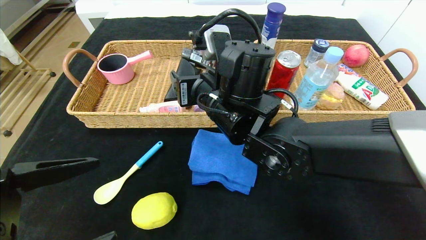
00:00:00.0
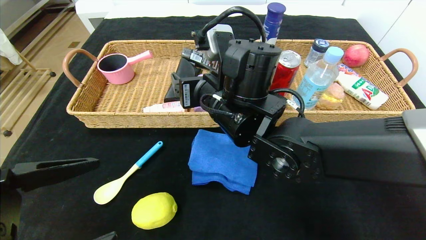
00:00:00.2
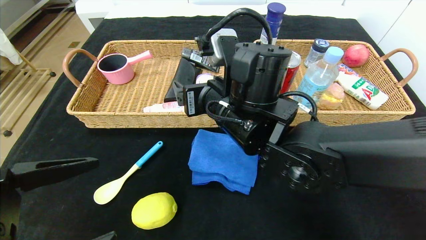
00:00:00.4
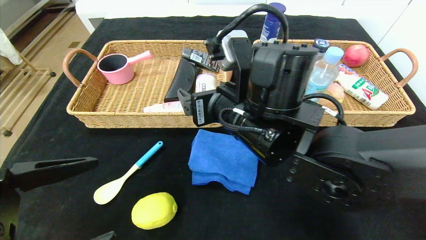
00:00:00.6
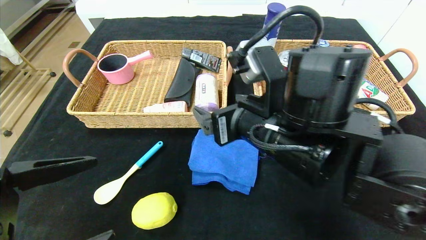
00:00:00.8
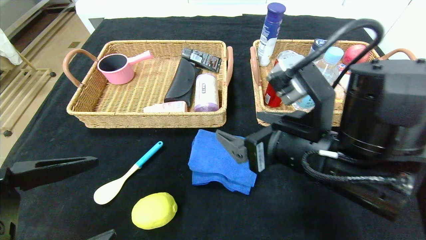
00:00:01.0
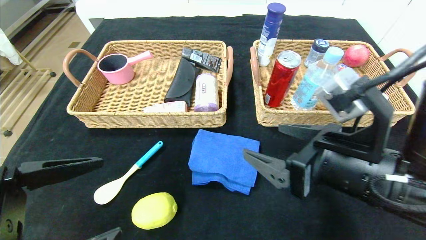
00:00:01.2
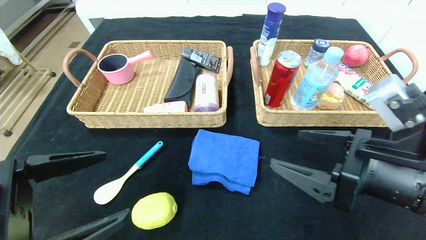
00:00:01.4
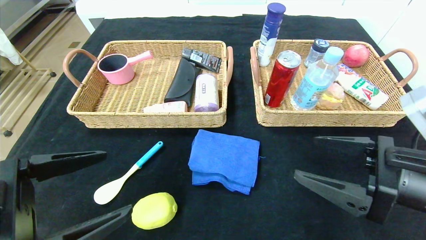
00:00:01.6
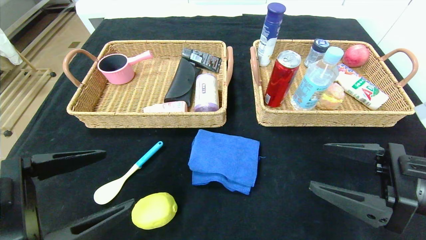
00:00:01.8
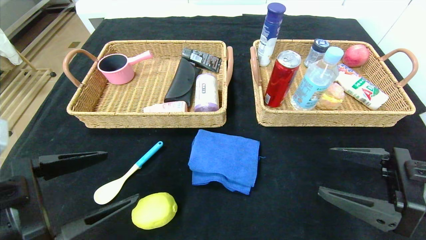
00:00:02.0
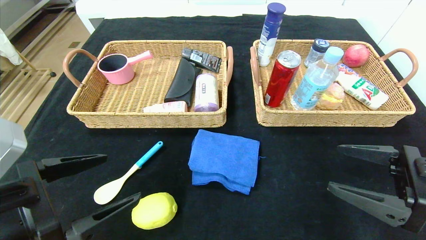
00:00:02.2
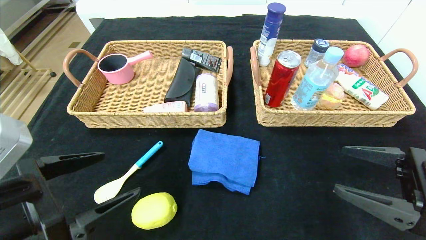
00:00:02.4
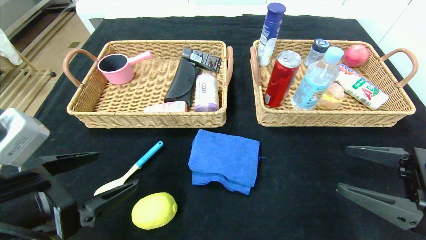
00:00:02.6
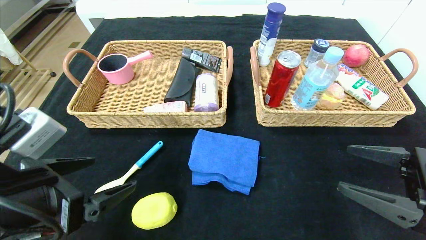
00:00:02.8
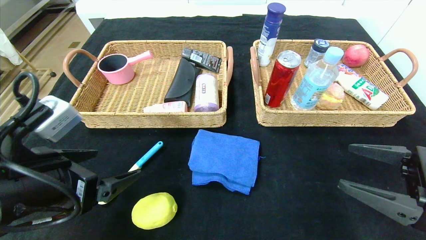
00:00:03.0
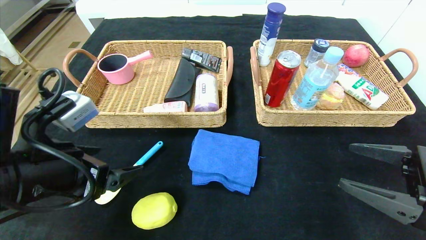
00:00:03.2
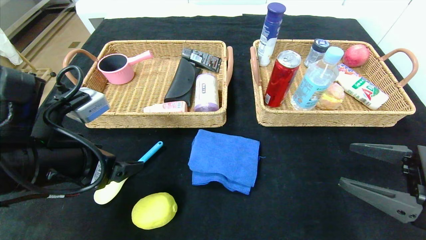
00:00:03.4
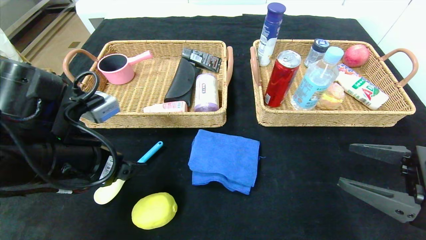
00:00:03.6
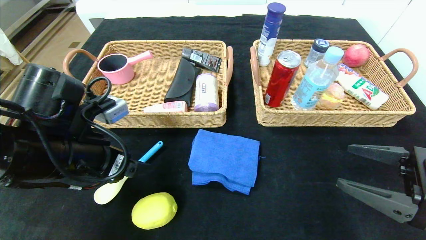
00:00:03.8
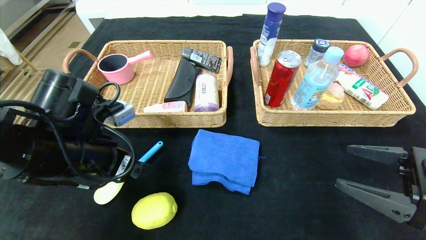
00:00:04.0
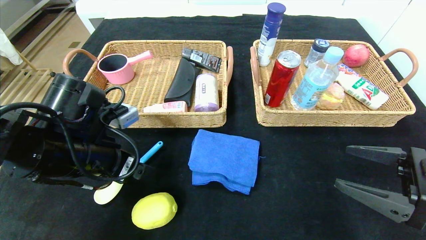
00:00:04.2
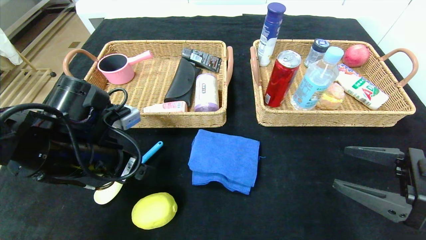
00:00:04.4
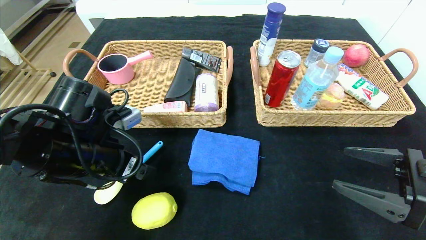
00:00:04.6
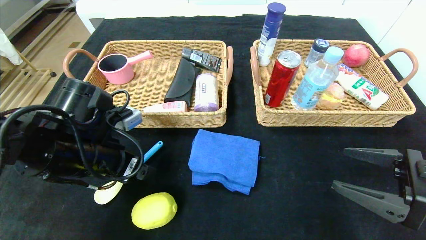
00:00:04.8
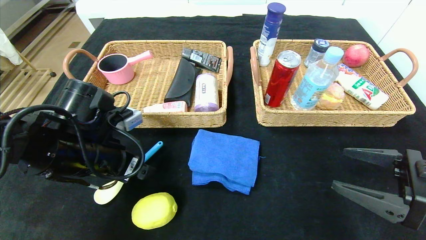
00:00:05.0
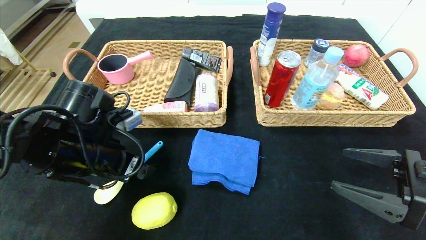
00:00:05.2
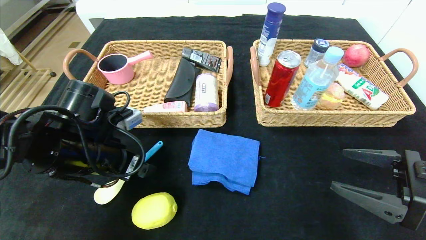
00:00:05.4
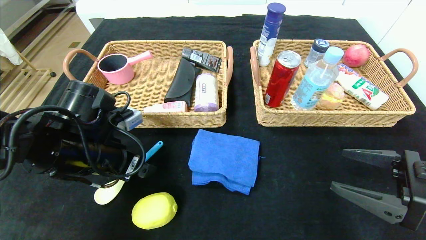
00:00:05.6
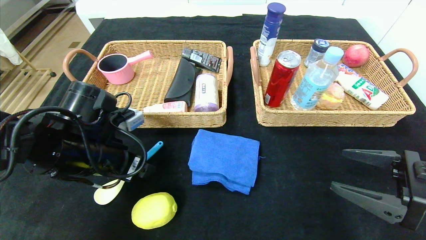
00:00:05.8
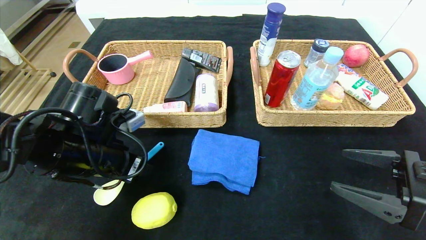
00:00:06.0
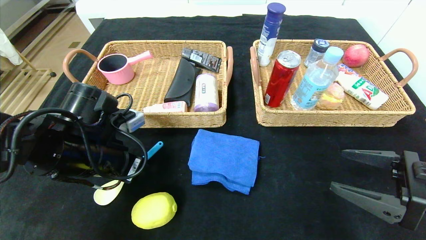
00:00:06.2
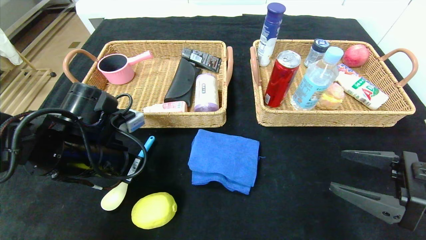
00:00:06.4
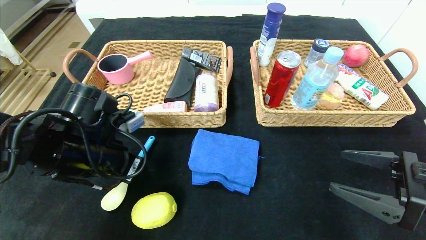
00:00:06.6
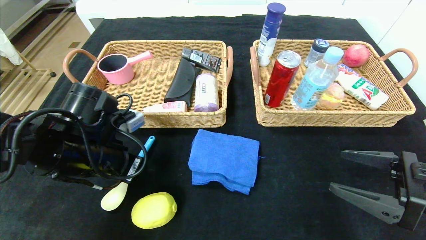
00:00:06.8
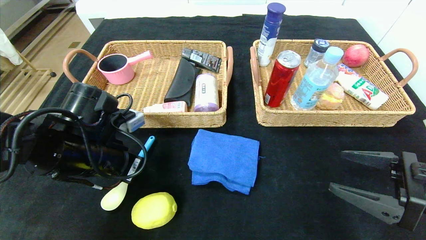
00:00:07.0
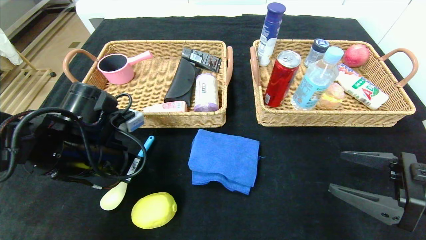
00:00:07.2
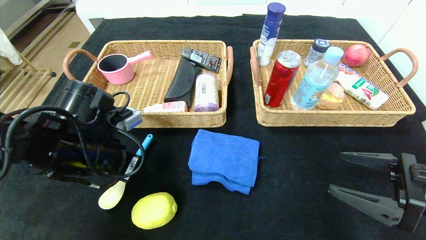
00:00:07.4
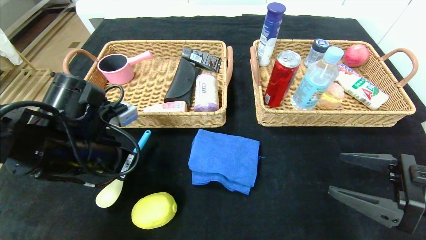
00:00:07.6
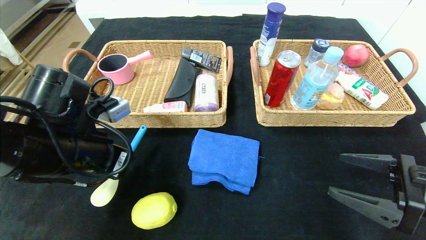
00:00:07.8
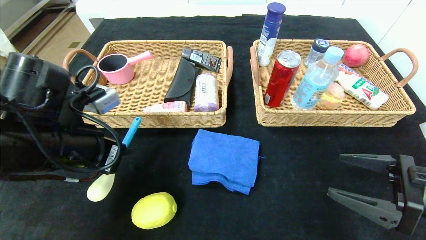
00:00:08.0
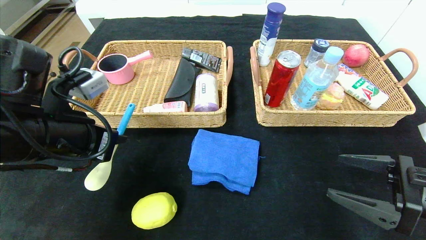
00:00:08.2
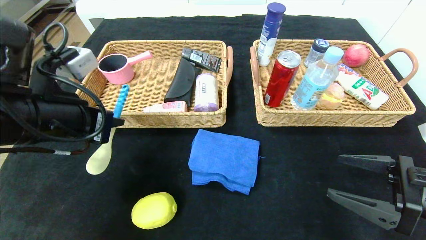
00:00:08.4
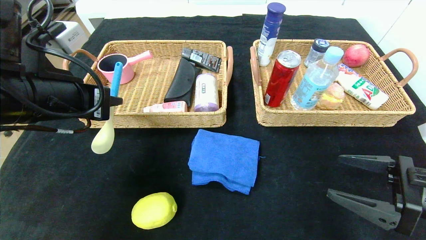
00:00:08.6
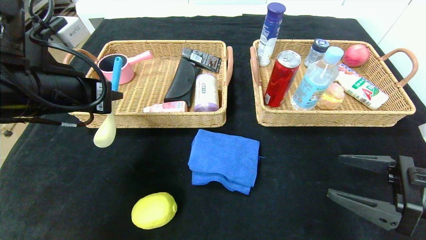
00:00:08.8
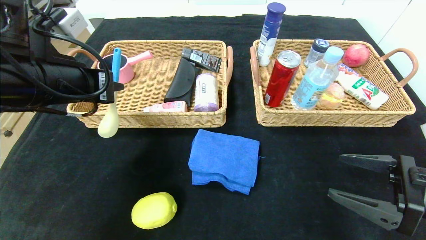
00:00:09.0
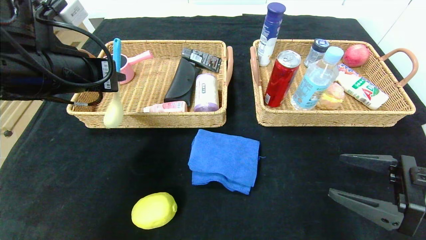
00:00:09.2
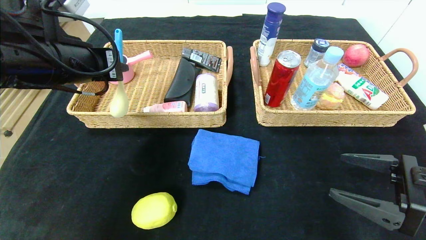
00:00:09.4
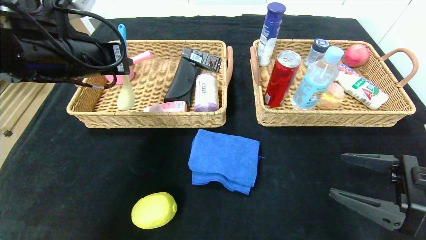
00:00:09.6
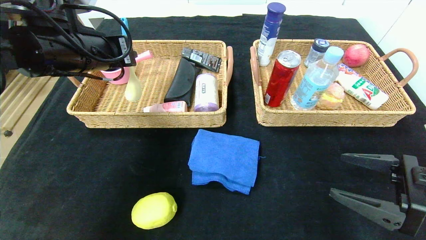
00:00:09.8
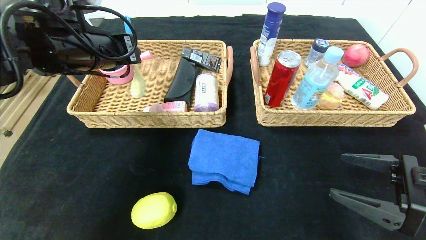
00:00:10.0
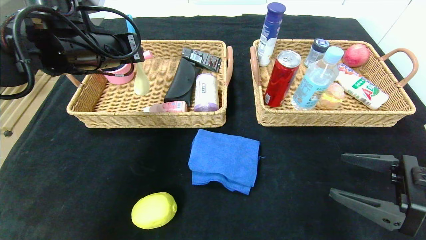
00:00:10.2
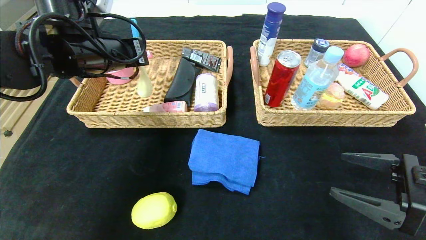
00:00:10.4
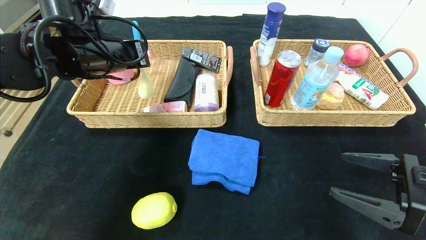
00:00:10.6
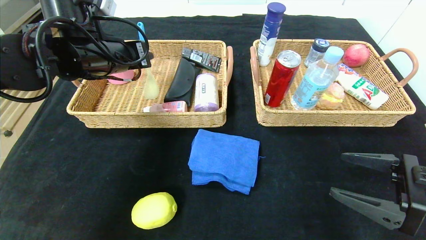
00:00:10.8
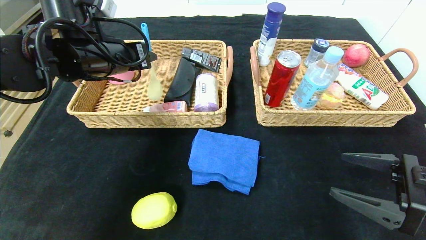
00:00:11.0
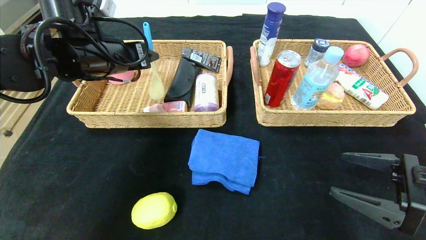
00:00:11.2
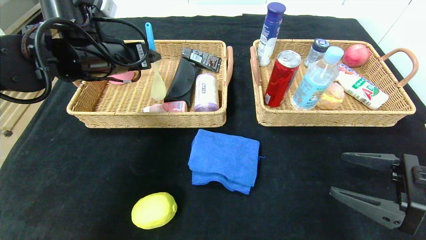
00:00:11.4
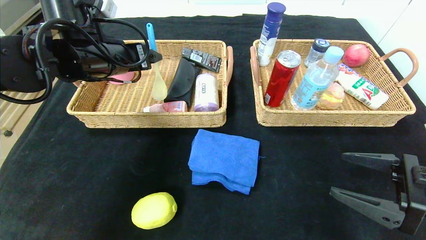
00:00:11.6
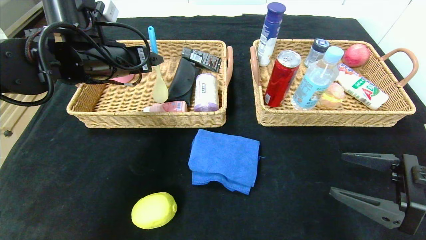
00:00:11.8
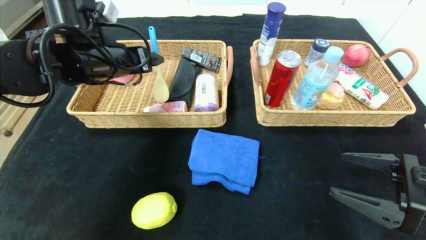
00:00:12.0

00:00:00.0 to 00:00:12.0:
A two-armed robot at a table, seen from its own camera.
00:00:00.0 to 00:00:01.6: The right gripper heads to the right and backward, covering about 30 cm, and opens up.
00:00:01.6 to 00:00:03.0: The right gripper moves to the right, about 5 cm. The left gripper moves some 5 cm.
00:00:03.0 to 00:00:04.4: The left gripper shifts some 10 cm forward.
00:00:04.4 to 00:00:06.0: The left gripper closes its fingers.
00:00:06.0 to 00:00:07.6: The left gripper closes its fingers.
00:00:07.6 to 00:00:09.0: The left gripper heads upward, covering about 10 cm.
00:00:09.0 to 00:00:10.4: The left gripper is displaced forward by about 10 cm.
00:00:10.4 to 00:00:12.0: The left gripper opens its fingers.

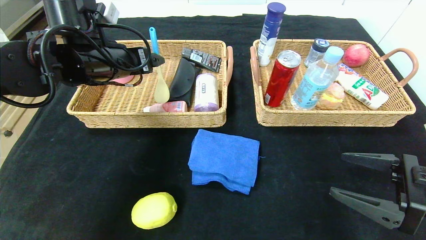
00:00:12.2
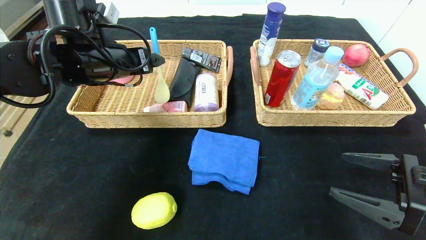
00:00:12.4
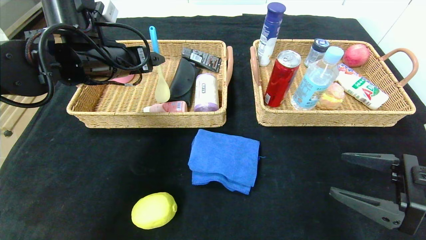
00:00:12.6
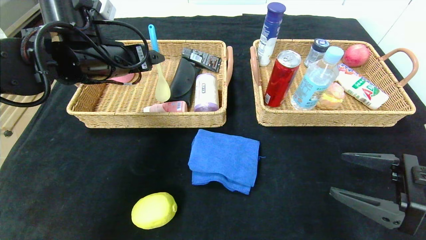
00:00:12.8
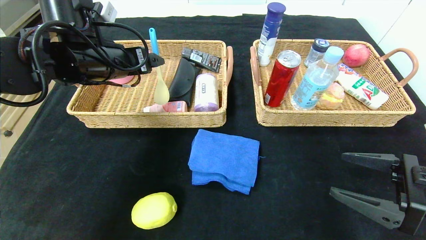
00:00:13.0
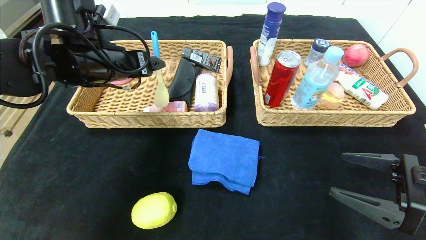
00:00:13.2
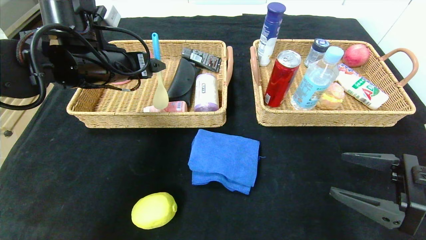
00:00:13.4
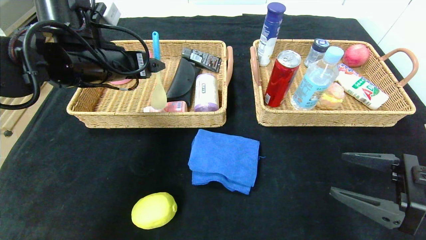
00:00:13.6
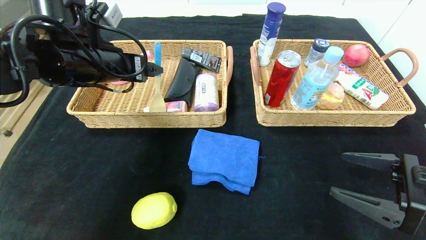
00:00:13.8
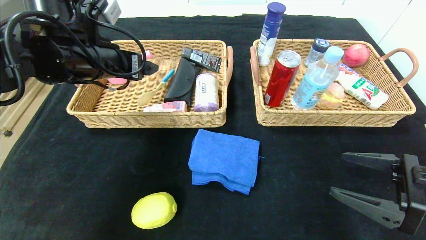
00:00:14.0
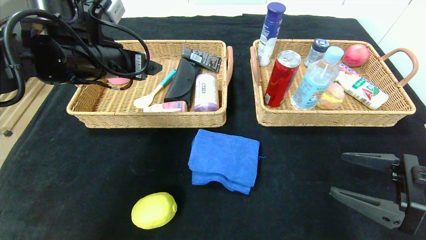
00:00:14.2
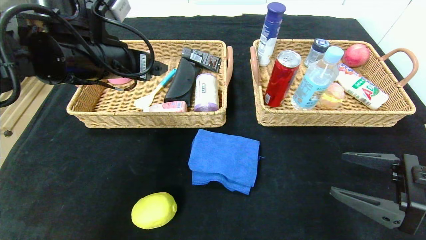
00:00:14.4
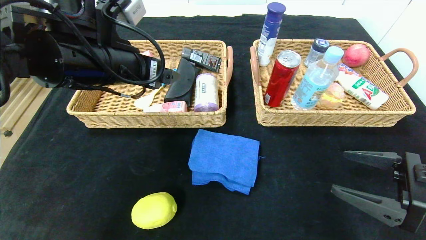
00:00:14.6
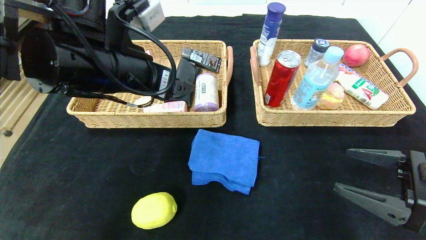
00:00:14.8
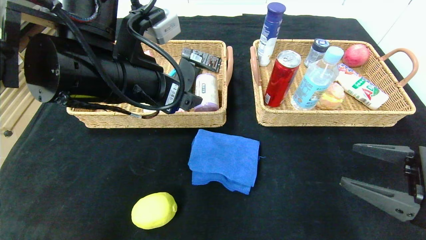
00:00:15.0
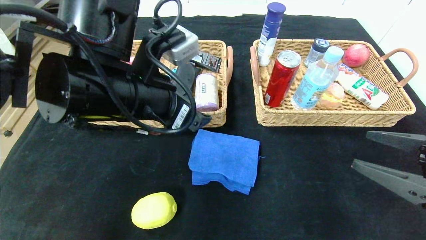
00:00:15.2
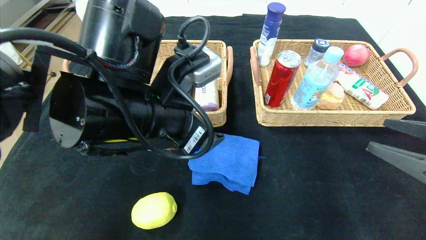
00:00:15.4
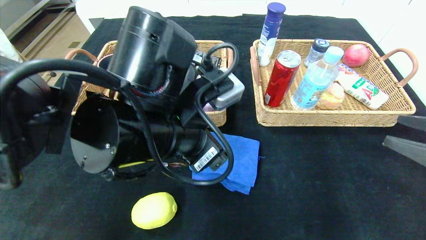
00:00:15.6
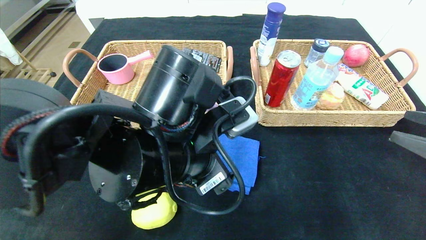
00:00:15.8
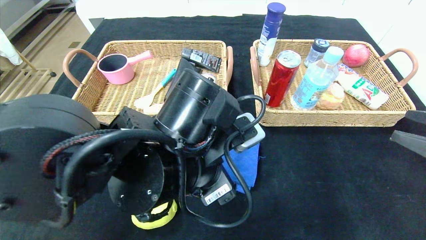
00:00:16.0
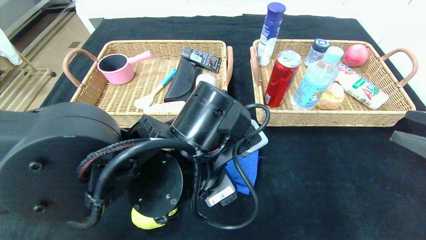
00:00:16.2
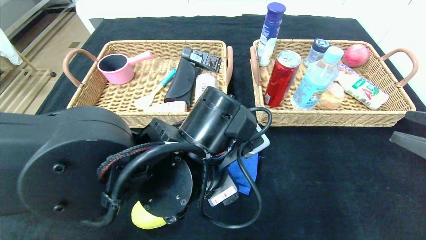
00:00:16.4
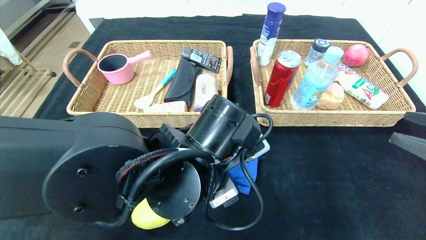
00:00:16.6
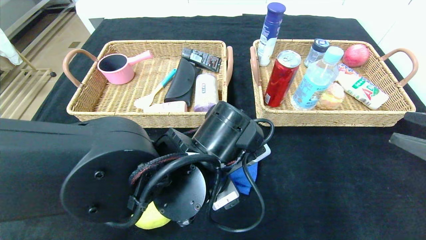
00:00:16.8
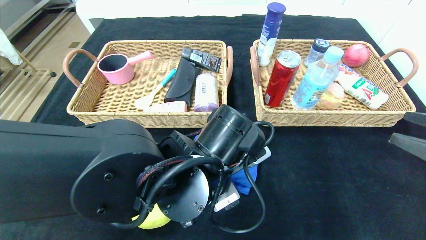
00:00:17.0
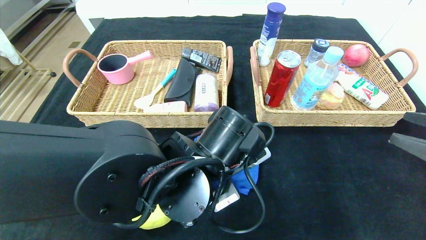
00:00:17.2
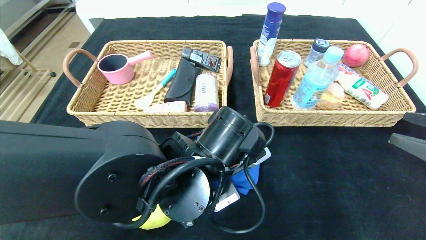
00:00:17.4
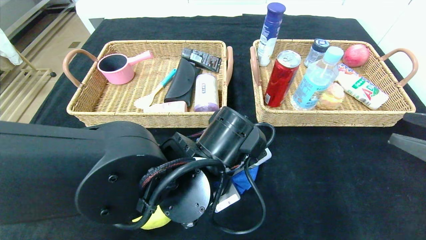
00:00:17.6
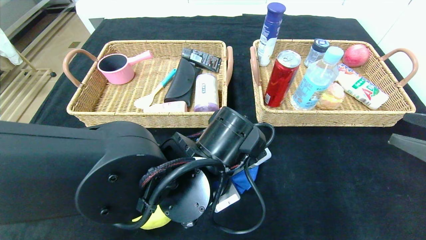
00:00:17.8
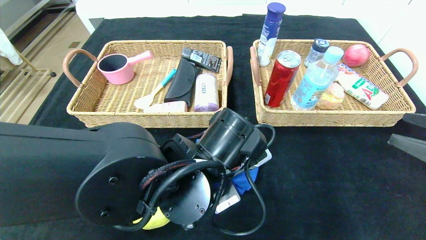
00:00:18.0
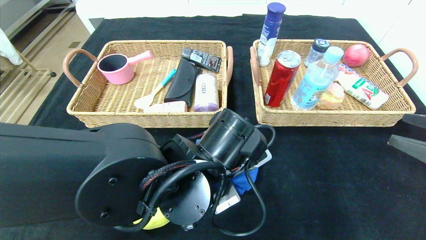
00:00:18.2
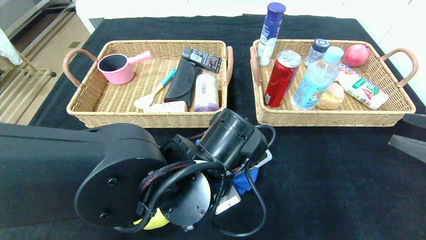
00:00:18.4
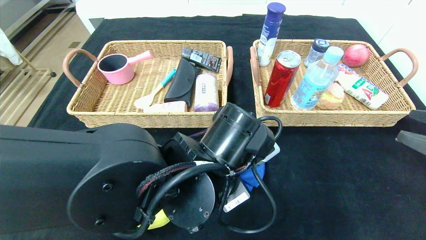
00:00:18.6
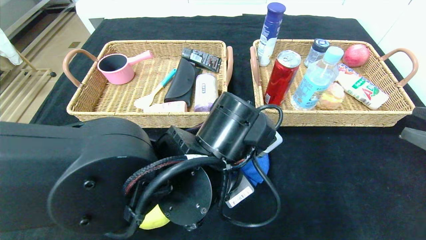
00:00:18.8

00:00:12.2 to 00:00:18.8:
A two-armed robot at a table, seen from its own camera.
Step, 00:00:12.2 to 00:00:14.4: Grasp the spoon and put it in the left basket.
00:00:12.2 to 00:00:13.8: There are only small adjustments of the grippers.
00:00:13.8 to 00:00:15.4: The left gripper goes roughly 15 cm to the right and backward, while the right gripper shifts by about 5 cm.
00:00:15.4 to 00:00:17.2: The left gripper moves downward and to the right, approximately 10 cm, and closes.
00:00:17.2 to 00:00:18.8: The left gripper closes its fingers.
